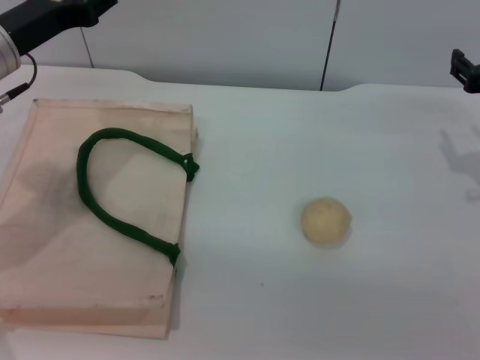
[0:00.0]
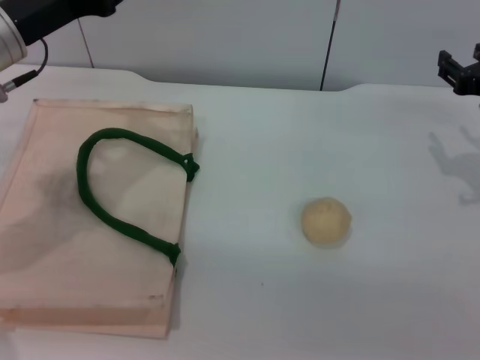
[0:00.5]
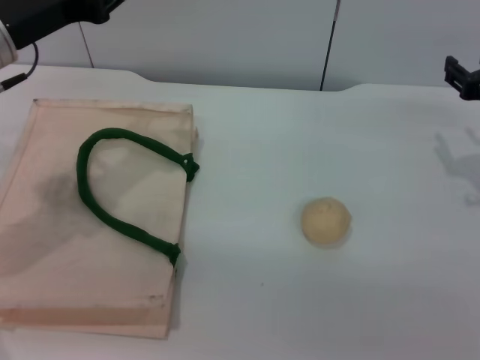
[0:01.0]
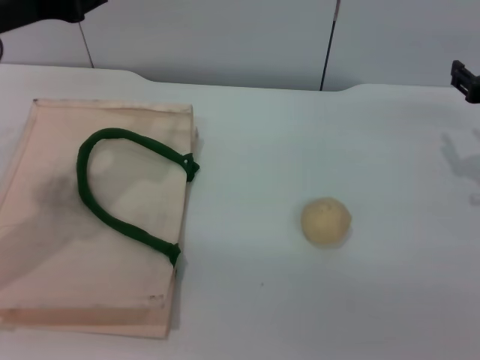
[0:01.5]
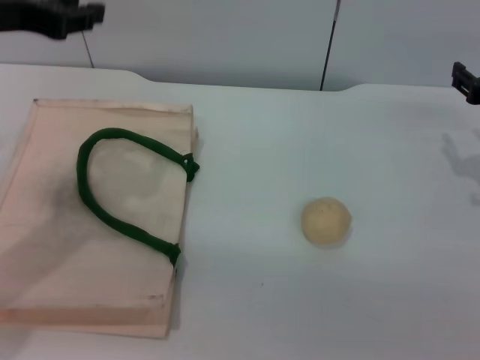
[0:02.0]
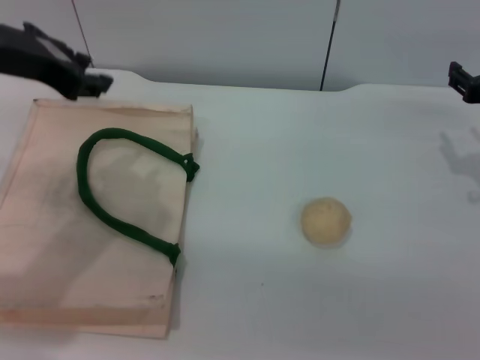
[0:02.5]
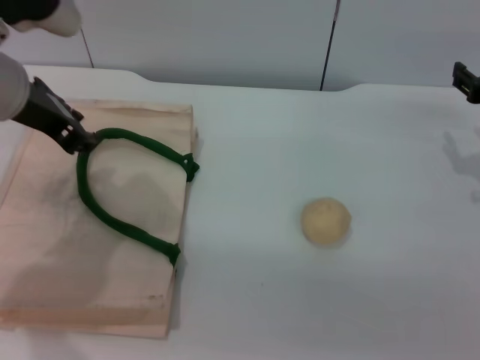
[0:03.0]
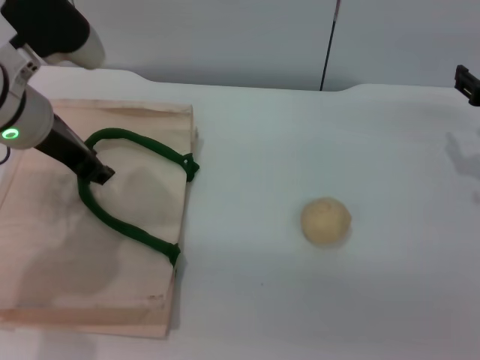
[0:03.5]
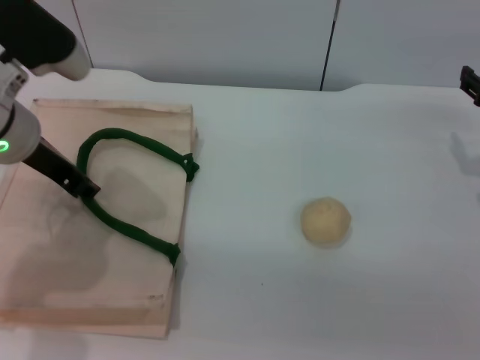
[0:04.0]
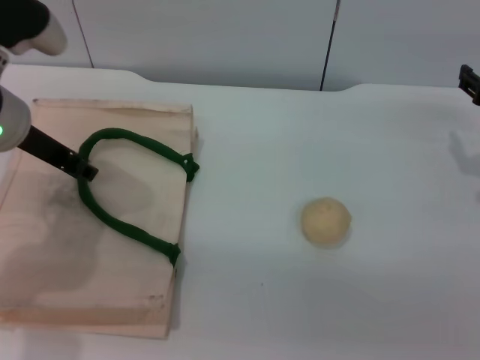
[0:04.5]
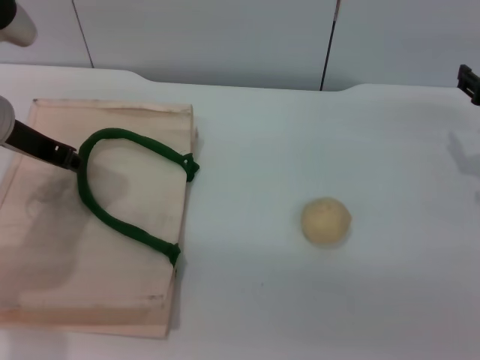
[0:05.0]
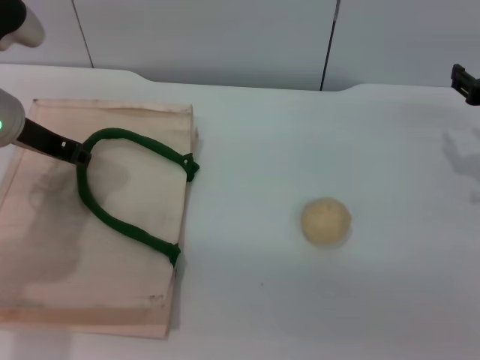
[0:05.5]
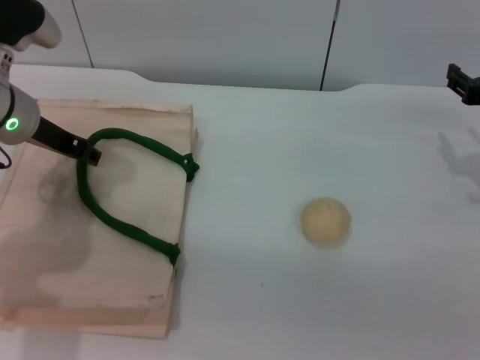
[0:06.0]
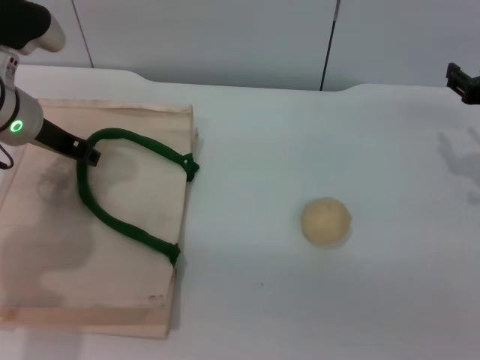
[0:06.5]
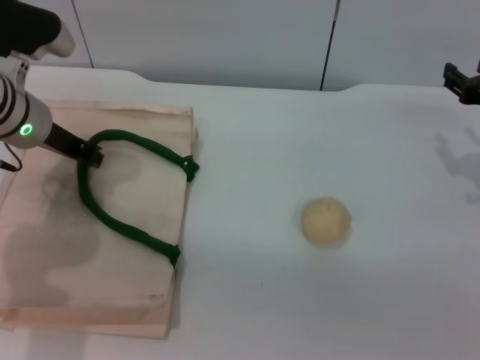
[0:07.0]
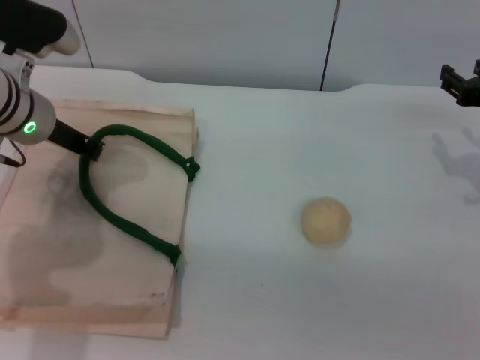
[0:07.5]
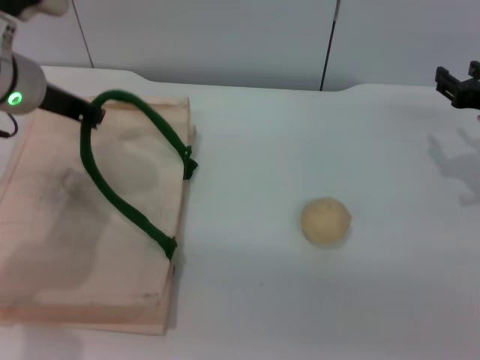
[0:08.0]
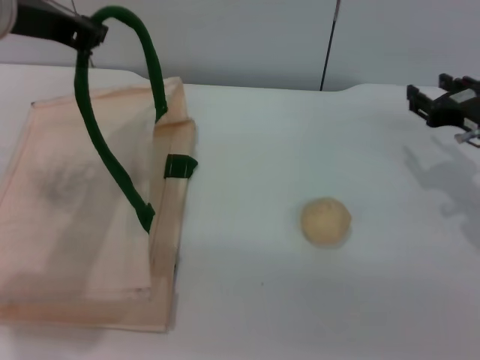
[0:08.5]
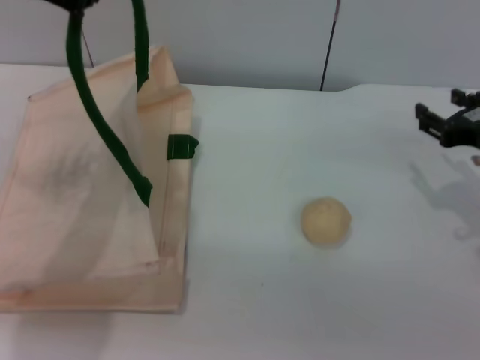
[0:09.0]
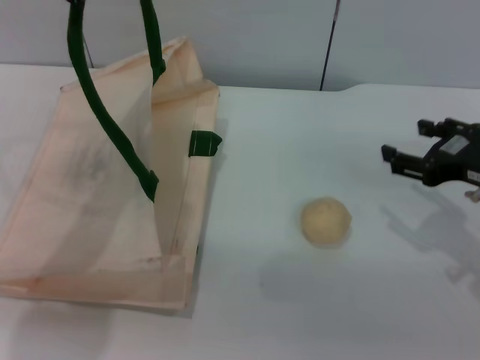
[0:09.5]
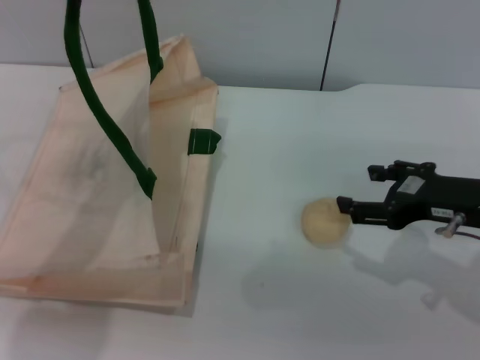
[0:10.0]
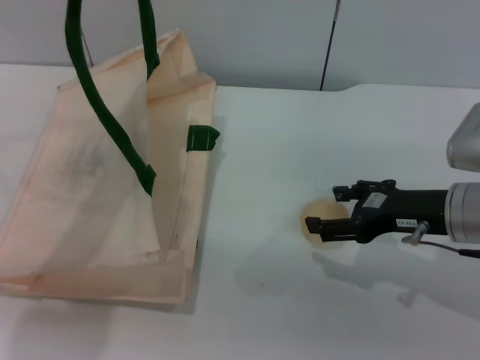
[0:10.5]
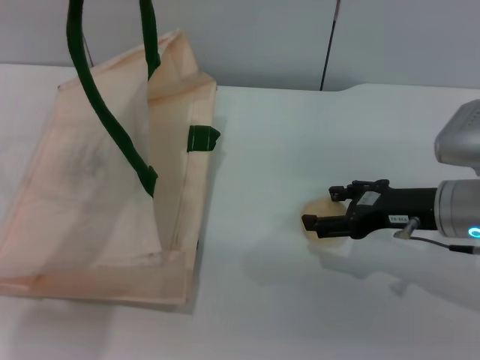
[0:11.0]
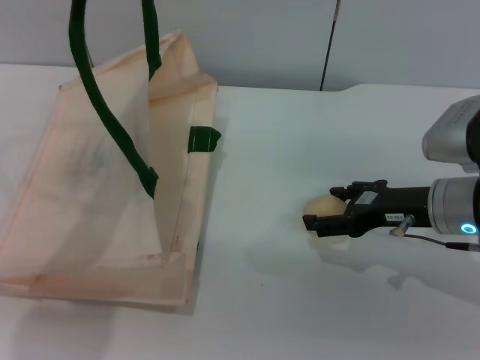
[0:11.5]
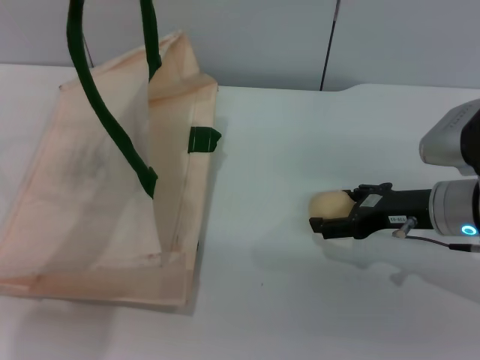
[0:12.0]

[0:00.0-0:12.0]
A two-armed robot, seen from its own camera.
Task of the whole recording: pick up the egg yolk pastry from the table and place it in the white handbag.
Step, 0:00.0 to 0:08.5: Lift the woven bag with the left gripper to open it.
0:00.0 to 0:02.0: The left gripper goes about 10 cm upward.
0:02.0 to 0:04.0: The left gripper travels downward by roughly 10 cm.
0:06.0 to 0:08.0: The left gripper closes up.
0:08.0 to 0:10.0: The left gripper travels upward by some 15 cm. The right gripper travels backward by roughly 10 cm, and opens.
0:10.0 to 0:12.0: The right gripper changes place by approximately 5 cm.

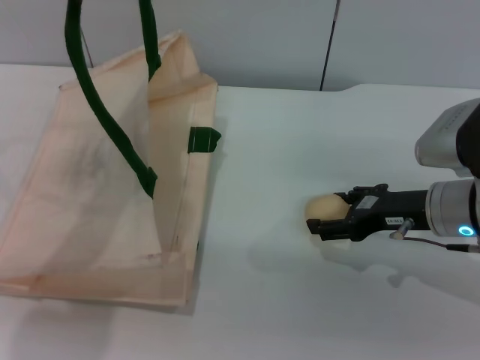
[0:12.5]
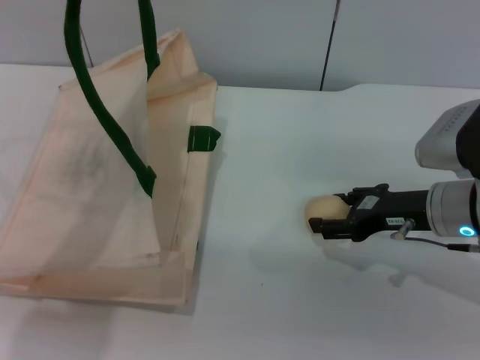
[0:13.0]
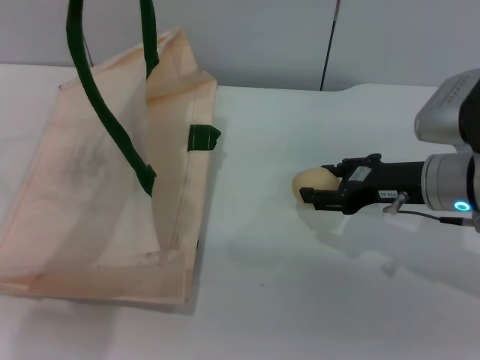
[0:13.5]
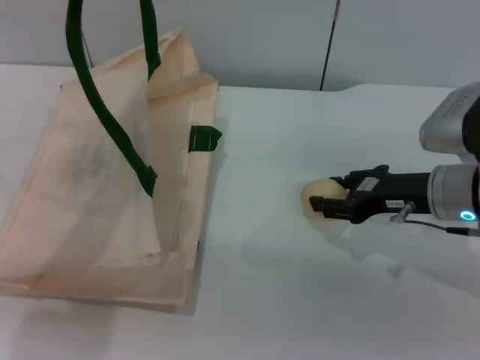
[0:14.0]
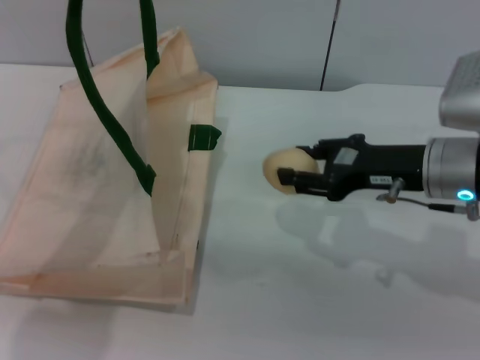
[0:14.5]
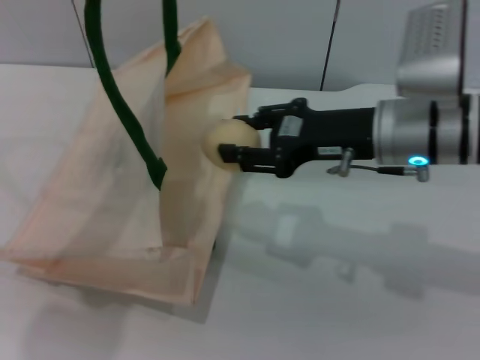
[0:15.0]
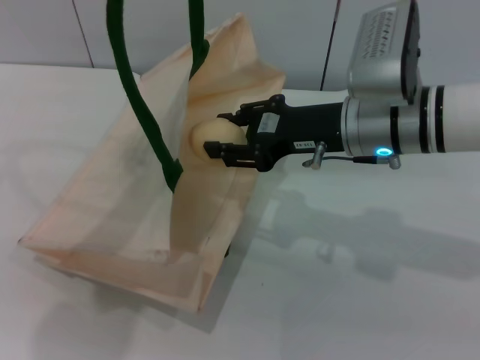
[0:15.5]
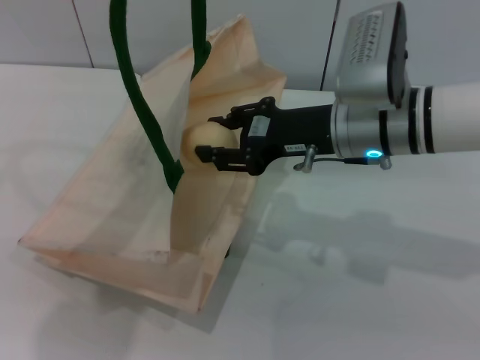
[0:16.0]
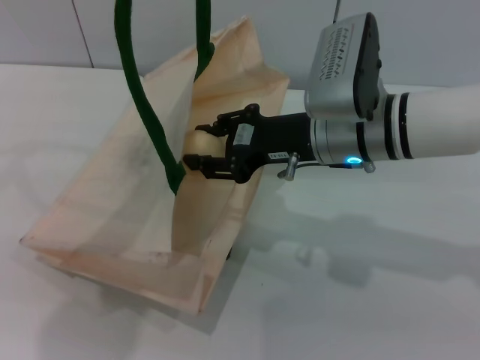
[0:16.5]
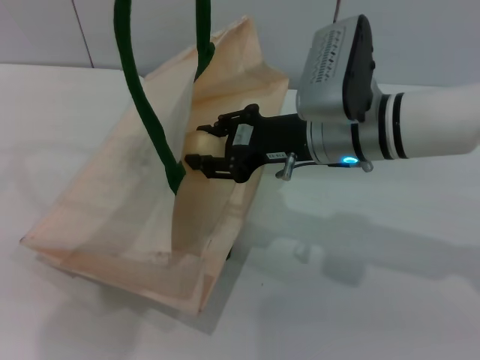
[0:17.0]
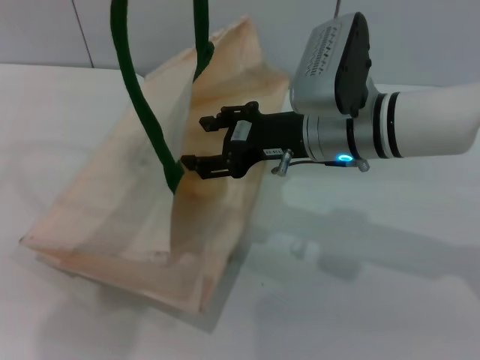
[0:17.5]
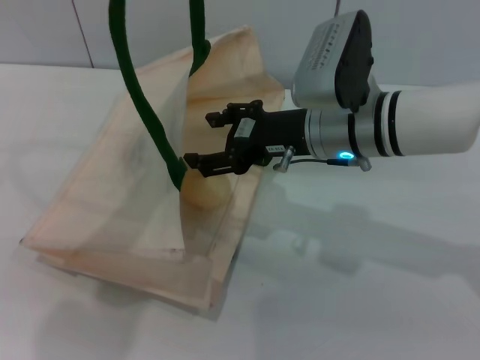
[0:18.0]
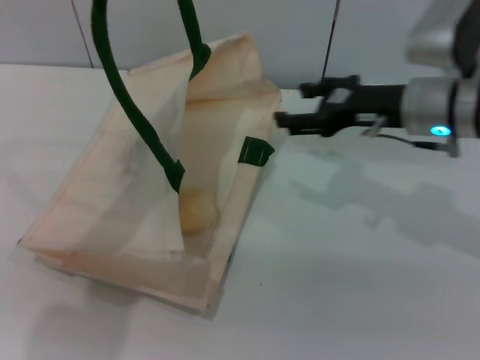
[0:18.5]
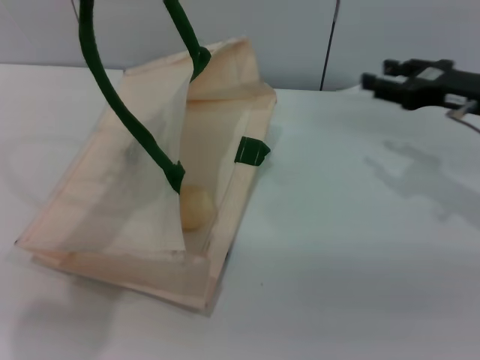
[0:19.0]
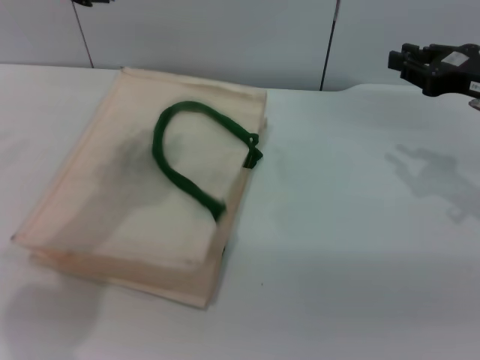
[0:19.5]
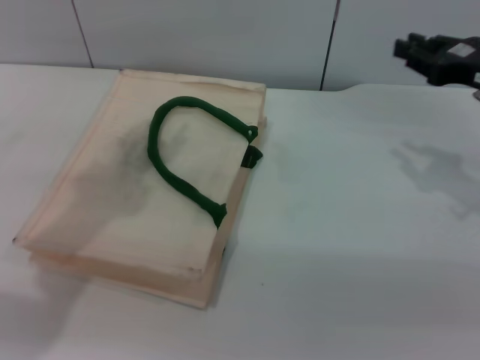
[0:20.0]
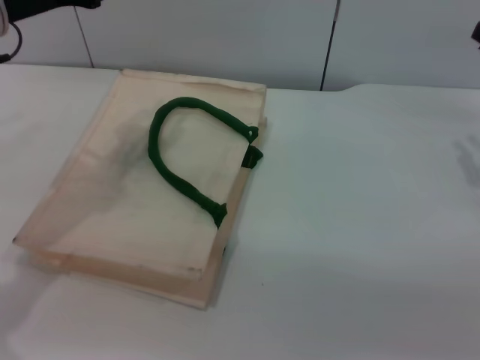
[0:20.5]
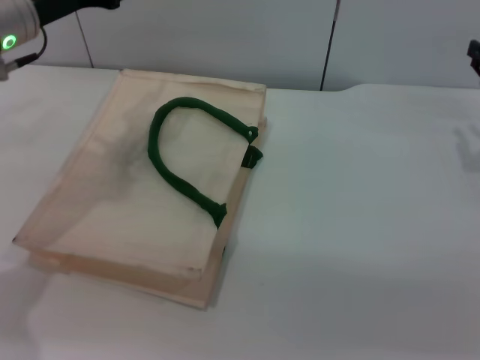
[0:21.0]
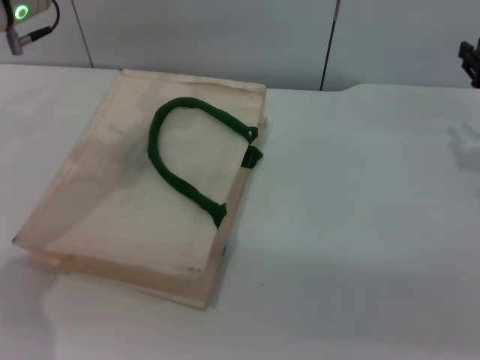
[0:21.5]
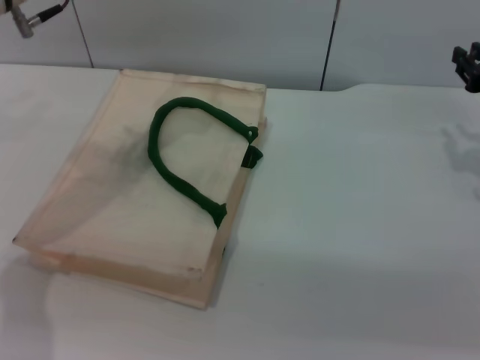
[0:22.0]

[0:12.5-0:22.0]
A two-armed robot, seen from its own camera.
Task of the whole recording: pick up the egg yolk pastry from the table and place it in the white handbag.
Step, 0:14.5 to 0:17.5: Place the egg yolk pastry into the woven bag with the right gripper.
Step, 0:18.0 to 0:19.5: Lower the woven bag with the left gripper to close it.
0:12.5 to 0:14.5: The right gripper changes place by about 5 cm, and closes up.
0:14.5 to 0:16.5: The right gripper travels to the left by some 10 cm.
0:16.5 to 0:18.0: The right gripper opens its fingers.
0:18.0 to 0:20.0: The left gripper goes approximately 10 cm to the left and downward, and opens its fingers; the right gripper heads to the right, covering approximately 20 cm, and closes its fingers.
0:20.0 to 0:22.0: The left gripper shifts roughly 10 cm downward and forward.
